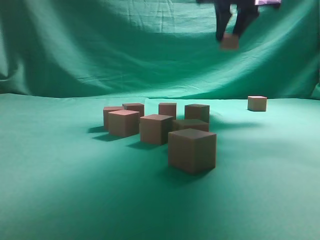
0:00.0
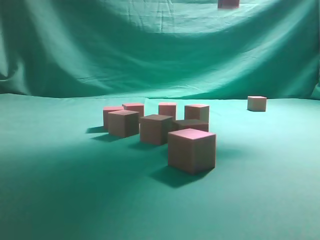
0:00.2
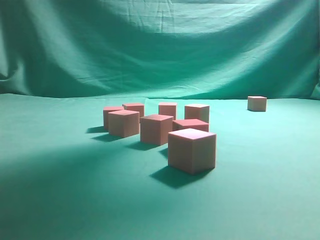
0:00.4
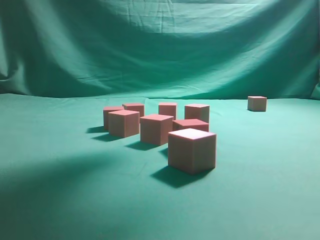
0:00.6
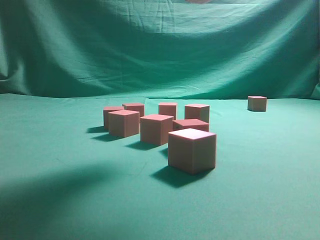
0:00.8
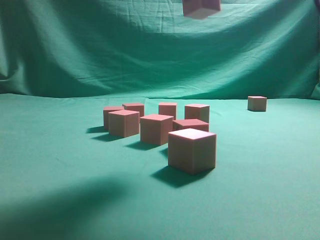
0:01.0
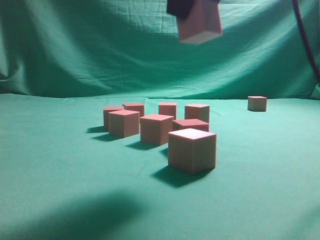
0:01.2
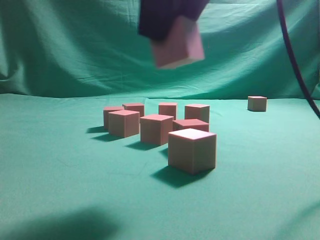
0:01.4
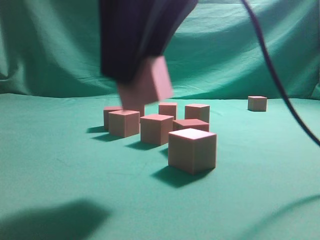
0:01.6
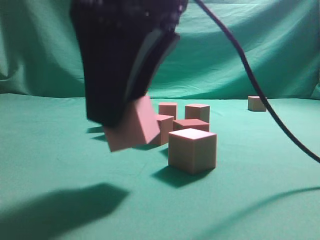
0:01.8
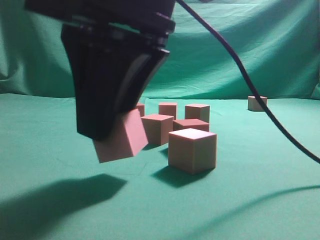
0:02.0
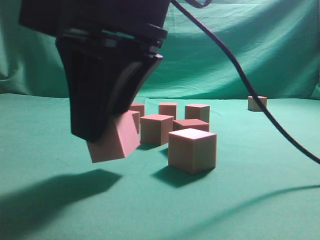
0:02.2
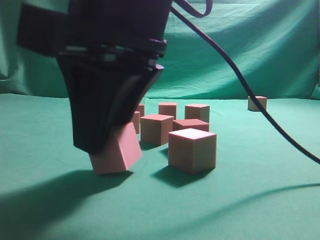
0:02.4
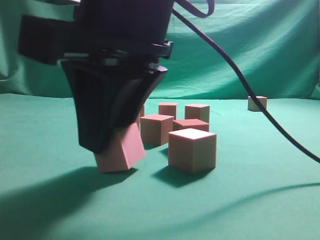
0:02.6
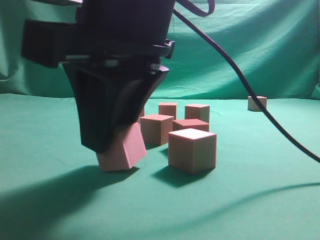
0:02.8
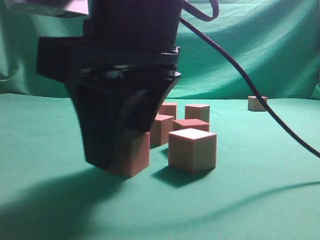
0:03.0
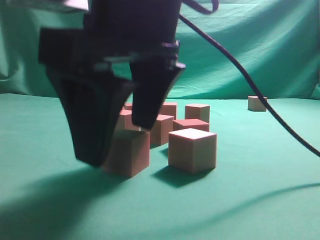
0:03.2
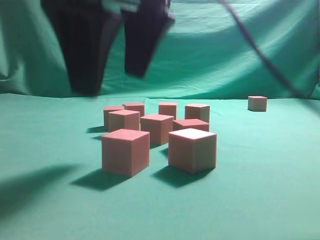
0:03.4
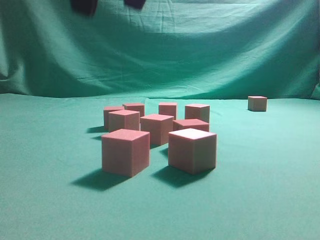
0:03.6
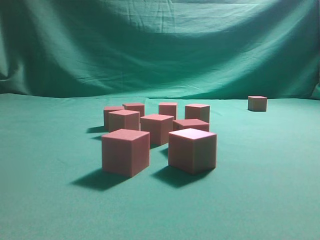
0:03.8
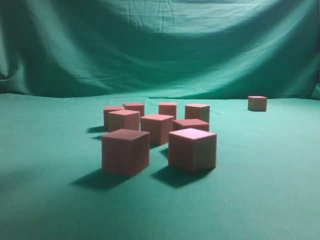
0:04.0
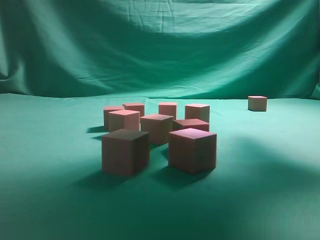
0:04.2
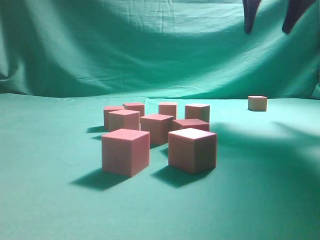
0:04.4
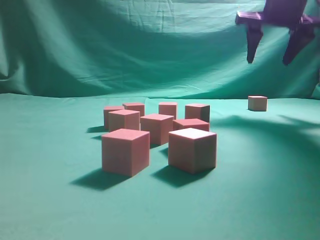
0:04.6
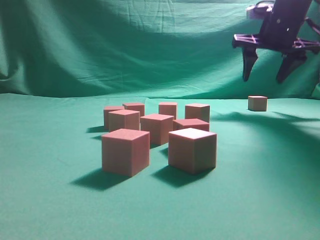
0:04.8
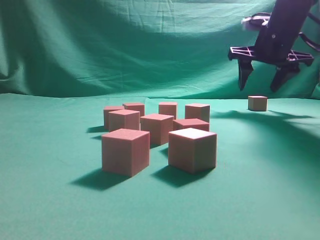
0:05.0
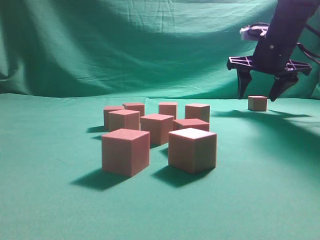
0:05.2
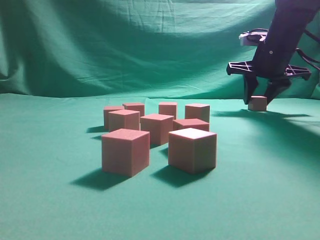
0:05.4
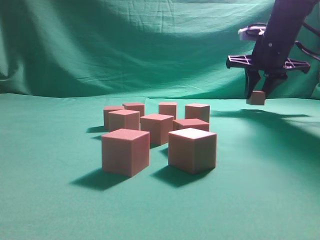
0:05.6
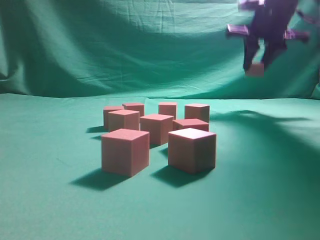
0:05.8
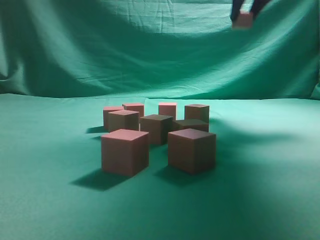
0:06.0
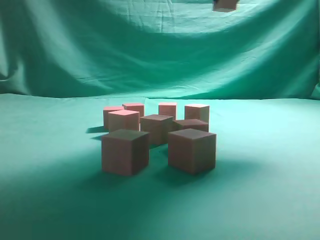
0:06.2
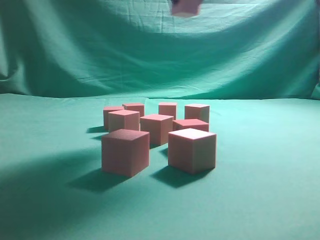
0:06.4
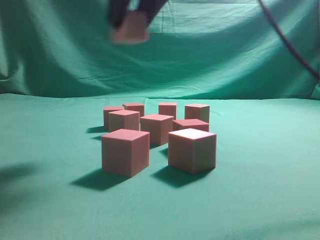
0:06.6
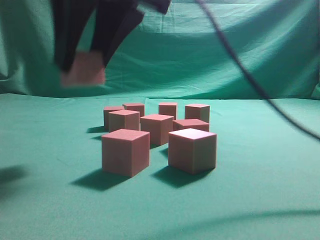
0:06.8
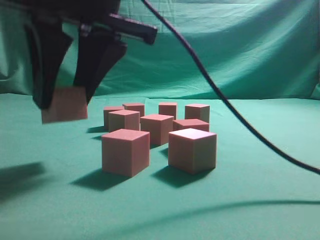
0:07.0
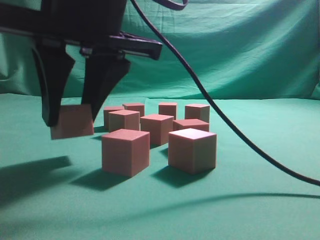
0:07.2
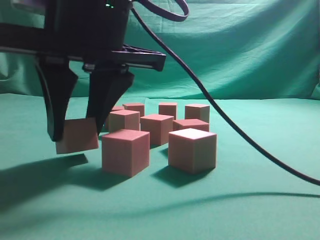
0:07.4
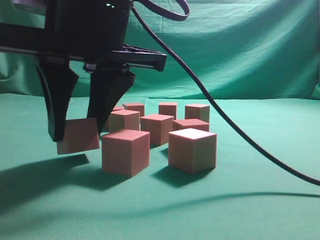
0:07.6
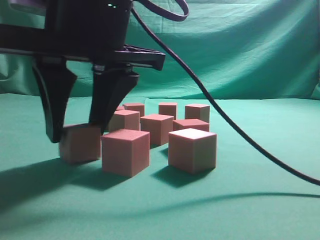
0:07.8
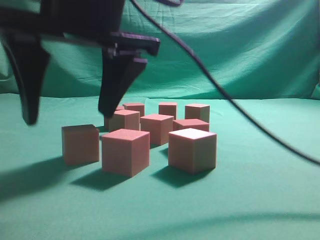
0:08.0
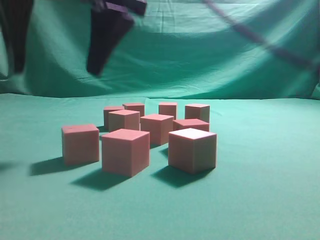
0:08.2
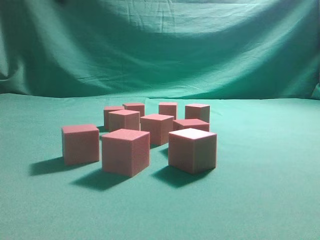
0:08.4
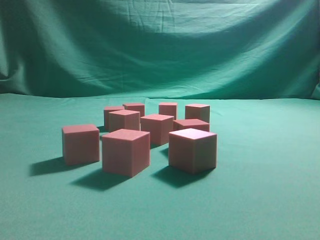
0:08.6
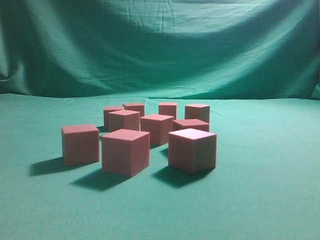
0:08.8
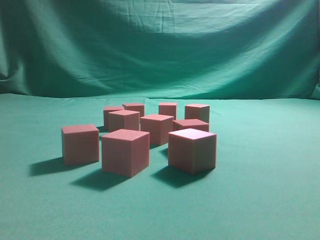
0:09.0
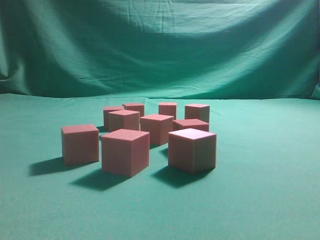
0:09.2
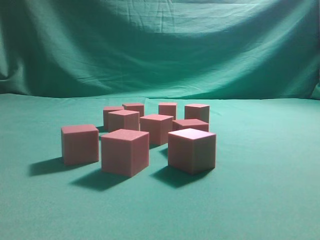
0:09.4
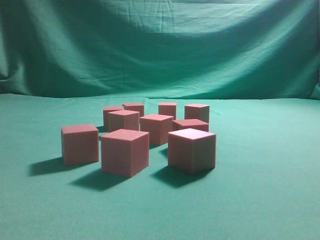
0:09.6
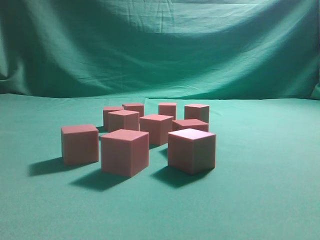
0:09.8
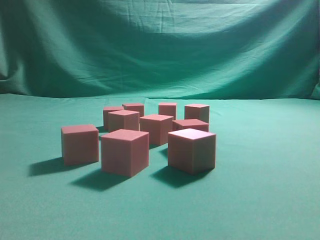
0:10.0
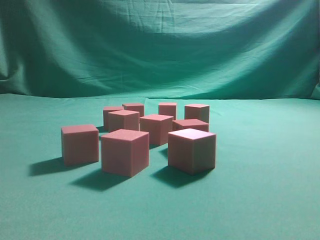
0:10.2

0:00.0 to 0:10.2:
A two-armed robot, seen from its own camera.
Task of the whole recording: pick up the multiple cubes in two columns one by one and place them in another position on the table.
Step, 0:00.0 to 0:03.4: Place the block at the correct position to assemble the letter S.
Step, 0:03.6 to 0:05.8: Pick up the block on the table.
Step, 0:06.0 to 0:08.2: Place the block at the correct position to assemble the letter S.
0:00.0 to 0:01.4: The right gripper travels backward and to the left by roughly 30 cm.
0:01.4 to 0:03.0: The right gripper is displaced downward by roughly 10 cm.
0:03.0 to 0:04.4: The right gripper goes roughly 35 cm forward, to the right and upward.
0:04.4 to 0:05.8: The right gripper travels forward and downward by roughly 10 cm, and closes.
0:05.8 to 0:07.2: The right gripper is displaced backward and to the left by about 35 cm.
0:07.2 to 0:08.8: The right gripper heads upward, covering some 30 cm, and closes its fingers.

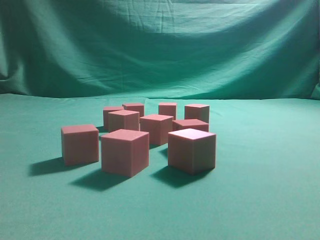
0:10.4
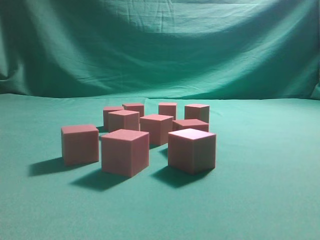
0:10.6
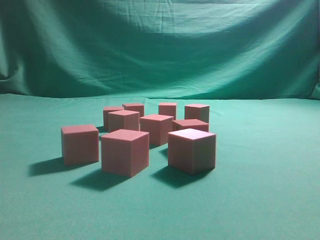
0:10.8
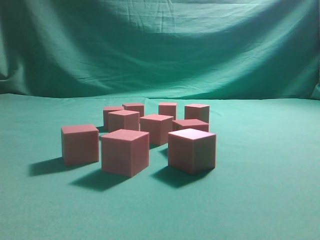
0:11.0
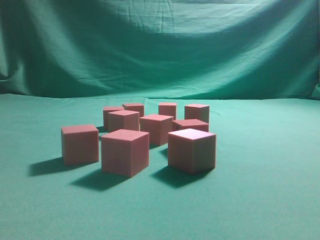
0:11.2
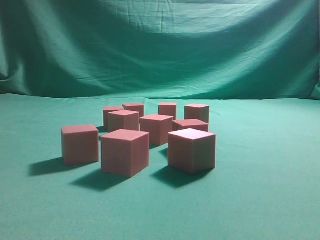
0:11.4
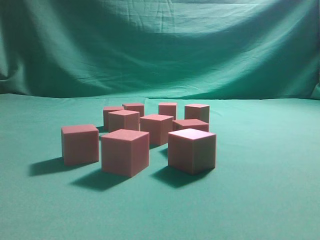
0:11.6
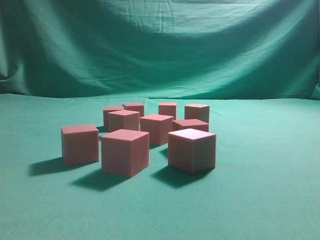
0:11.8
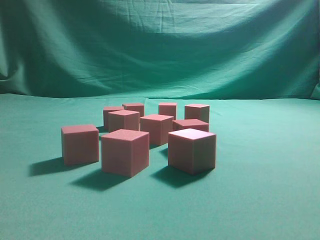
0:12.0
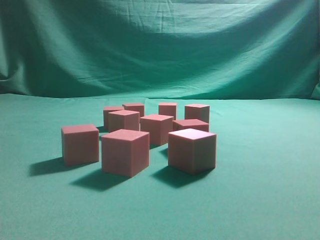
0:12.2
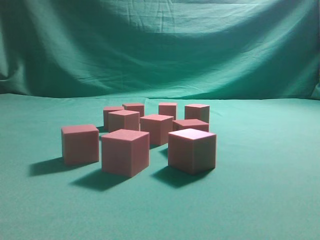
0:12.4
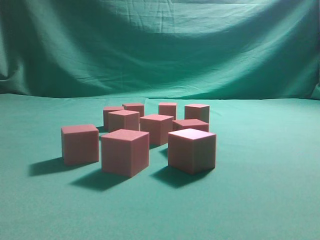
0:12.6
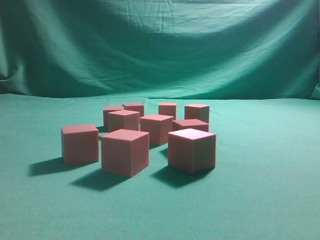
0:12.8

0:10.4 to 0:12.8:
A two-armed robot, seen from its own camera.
Task of the whole recording: pick up the multiple cubes in two columns one by one and place them in another position on the table.
0:11.6 to 0:12.8: Both grippers stay put.
